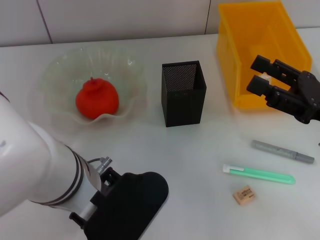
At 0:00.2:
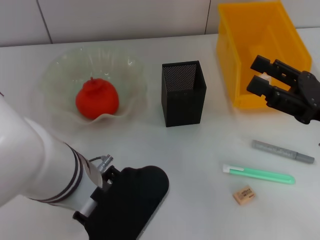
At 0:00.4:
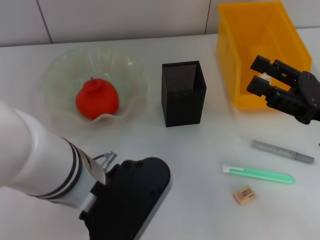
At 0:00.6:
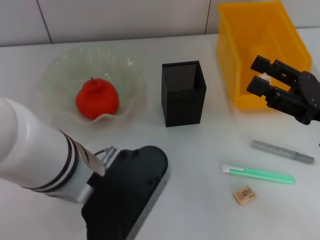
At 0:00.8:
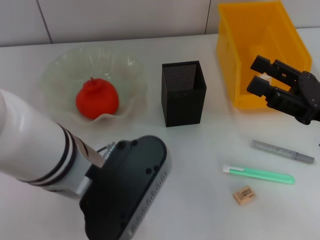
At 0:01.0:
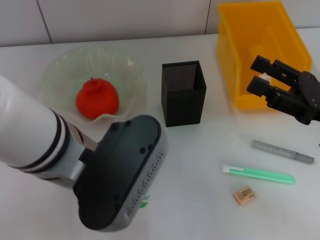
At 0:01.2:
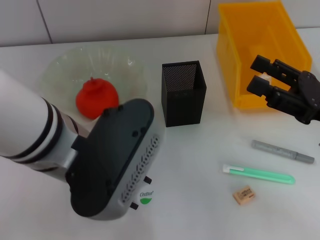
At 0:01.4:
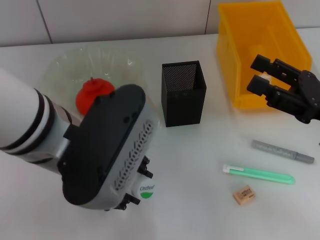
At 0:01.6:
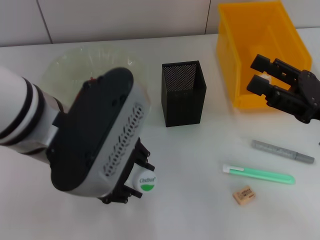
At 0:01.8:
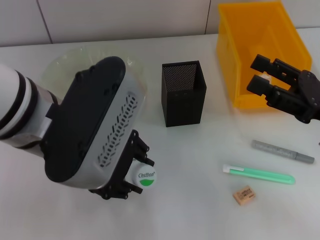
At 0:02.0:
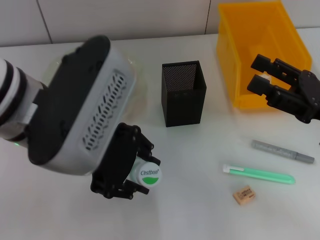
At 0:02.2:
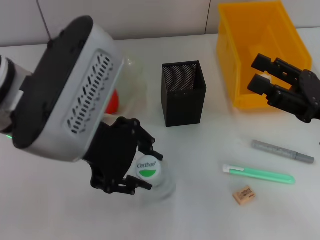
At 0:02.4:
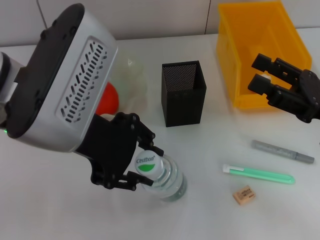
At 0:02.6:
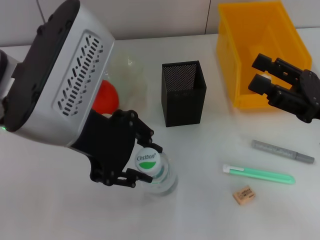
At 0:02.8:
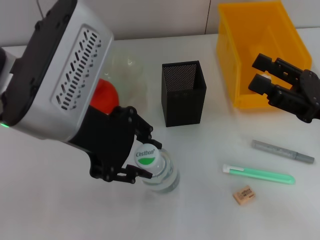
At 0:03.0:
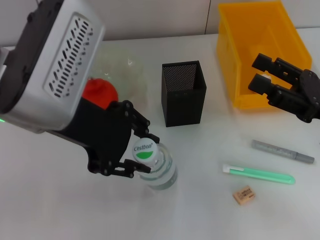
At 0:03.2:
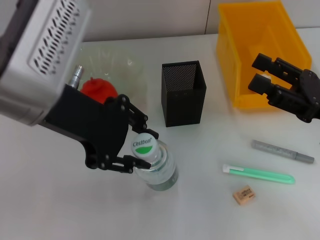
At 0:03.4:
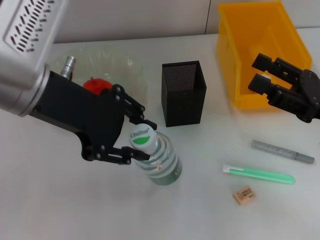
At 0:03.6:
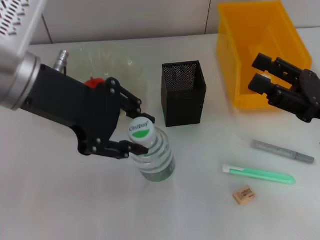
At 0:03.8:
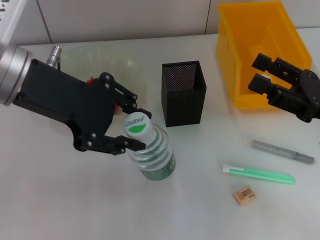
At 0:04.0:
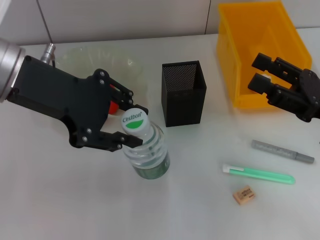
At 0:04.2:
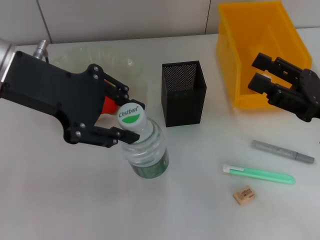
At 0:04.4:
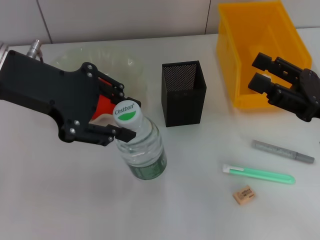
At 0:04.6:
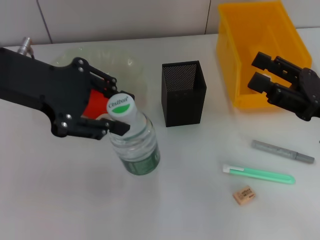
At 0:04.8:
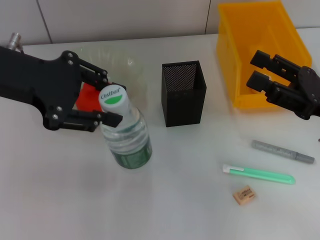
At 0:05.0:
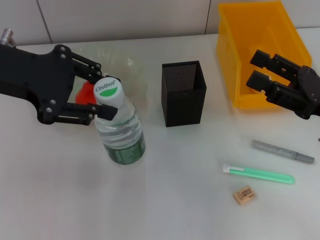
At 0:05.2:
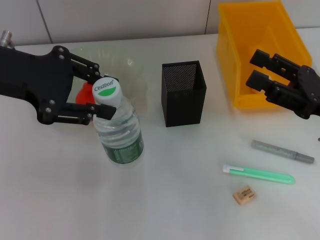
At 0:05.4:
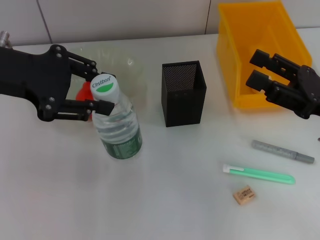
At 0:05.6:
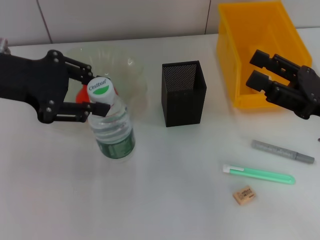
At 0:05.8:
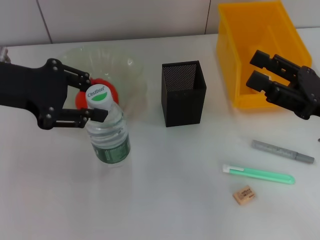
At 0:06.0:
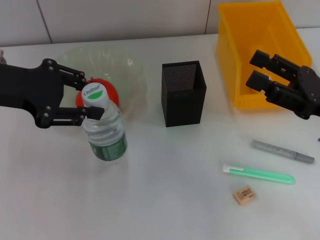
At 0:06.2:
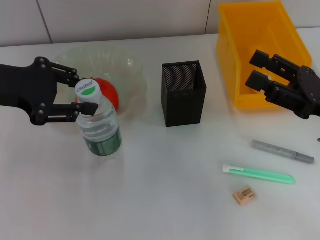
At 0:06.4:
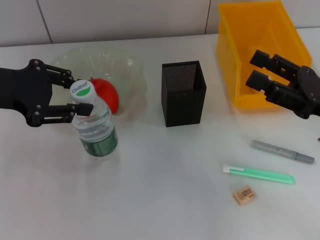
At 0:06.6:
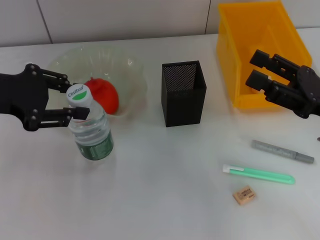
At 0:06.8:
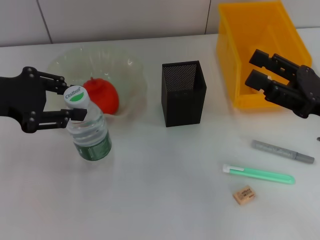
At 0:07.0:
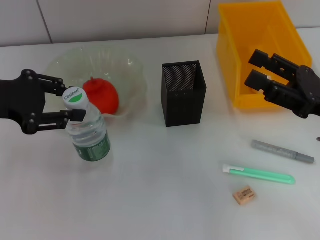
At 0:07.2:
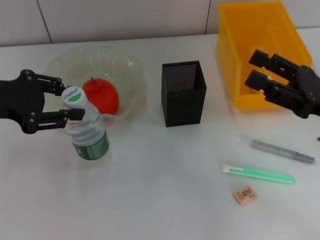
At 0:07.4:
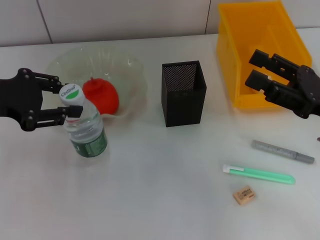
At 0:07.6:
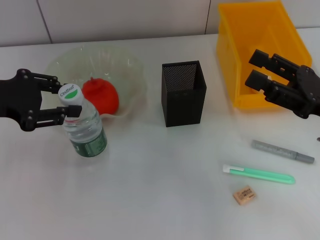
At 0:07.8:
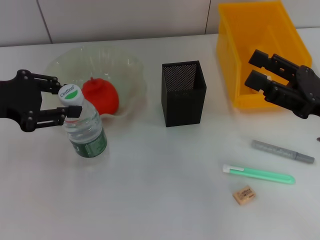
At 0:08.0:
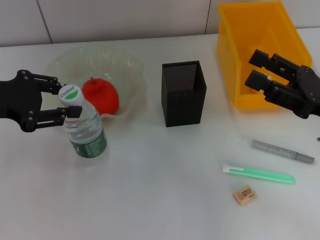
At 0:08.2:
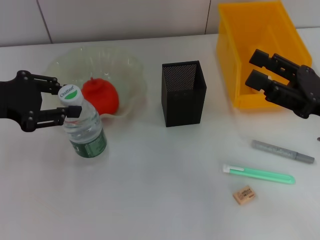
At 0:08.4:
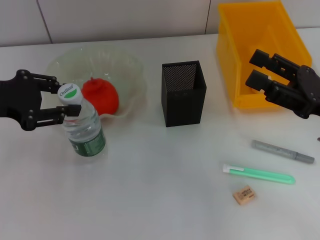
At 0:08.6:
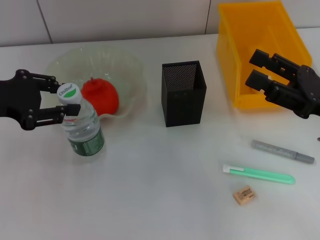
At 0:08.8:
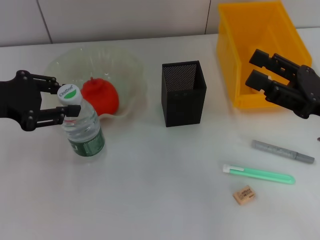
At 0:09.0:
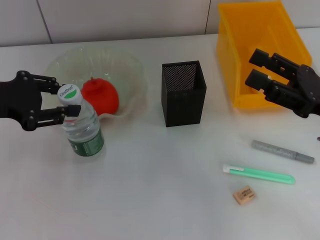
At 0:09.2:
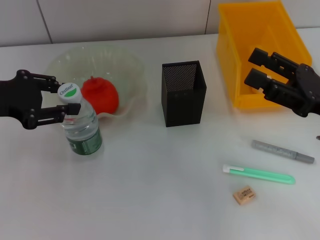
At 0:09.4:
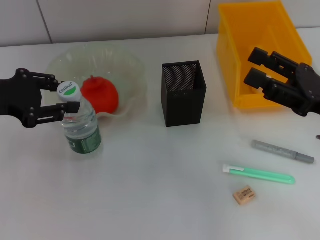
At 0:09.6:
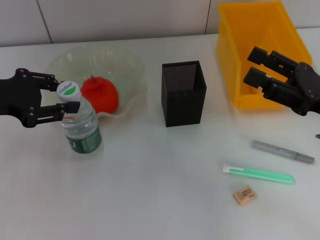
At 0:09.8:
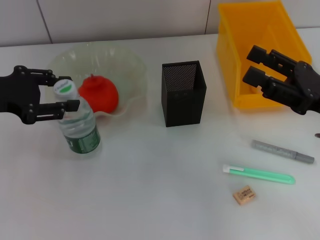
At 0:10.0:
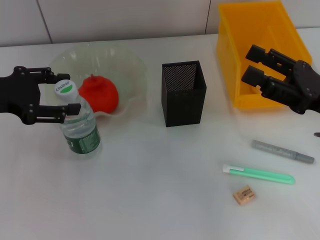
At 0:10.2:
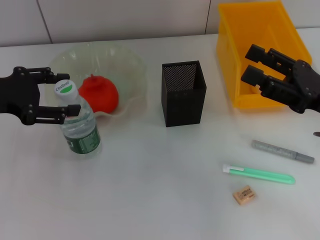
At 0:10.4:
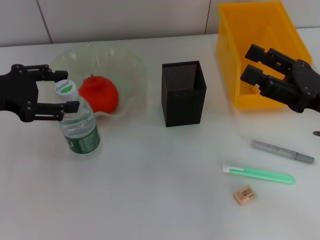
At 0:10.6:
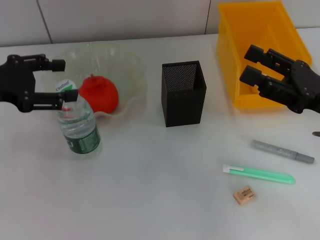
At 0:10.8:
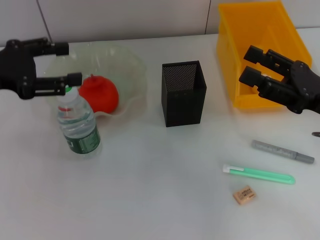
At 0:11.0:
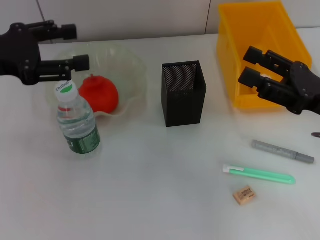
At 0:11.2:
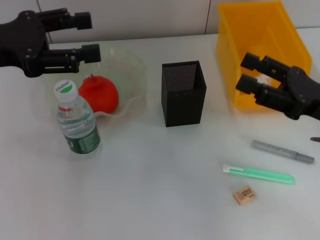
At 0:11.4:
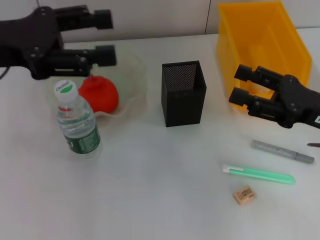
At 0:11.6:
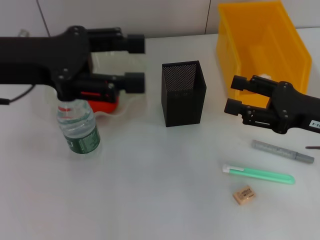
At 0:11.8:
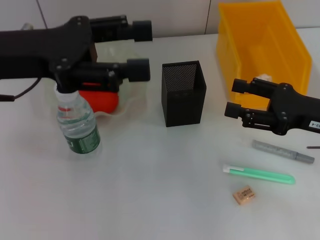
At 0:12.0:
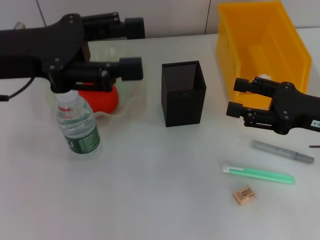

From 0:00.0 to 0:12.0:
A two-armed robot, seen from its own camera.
Step, from 0:00.0 to 0:10.4: Place the water bottle on the table with the left hand.
From 0:00.0 to 0:01.6: The left gripper shifts some 5 cm upward.
From 0:03.0 to 0:04.4: The left gripper travels to the left by some 5 cm.
From 0:04.4 to 0:06.0: The left gripper is displaced to the left by about 5 cm.
From 0:06.0 to 0:07.6: The grippers stay close to where they were, moving slightly.
From 0:07.6 to 0:09.0: Both grippers stay put.
From 0:09.0 to 0:10.4: The left gripper opens.
From 0:10.4 to 0:12.0: The left gripper is displaced to the right and upward by about 10 cm.

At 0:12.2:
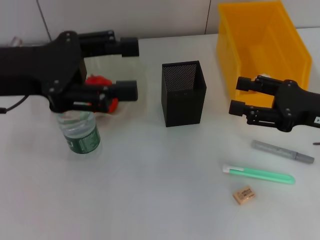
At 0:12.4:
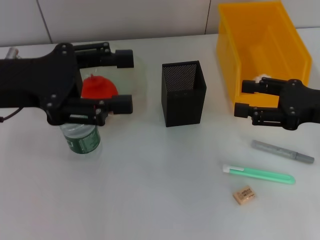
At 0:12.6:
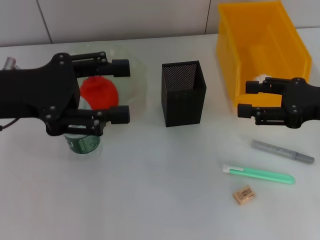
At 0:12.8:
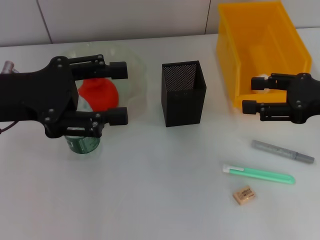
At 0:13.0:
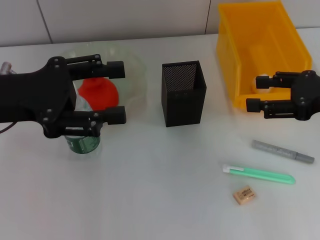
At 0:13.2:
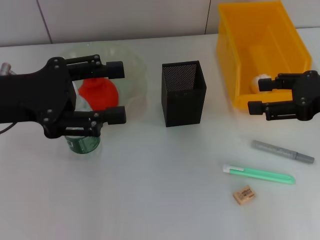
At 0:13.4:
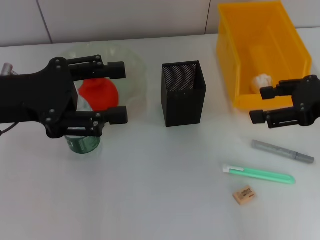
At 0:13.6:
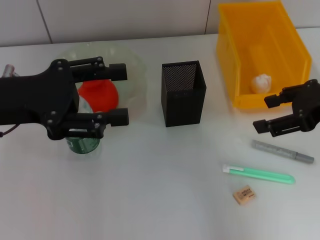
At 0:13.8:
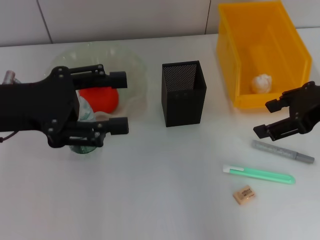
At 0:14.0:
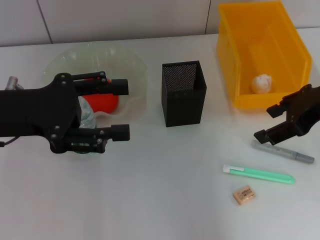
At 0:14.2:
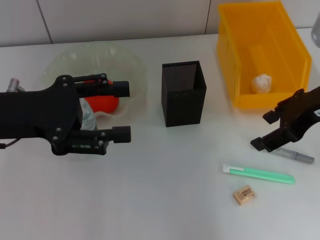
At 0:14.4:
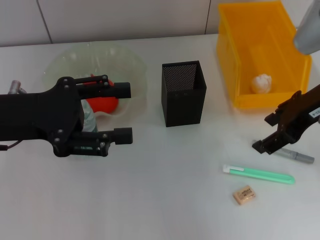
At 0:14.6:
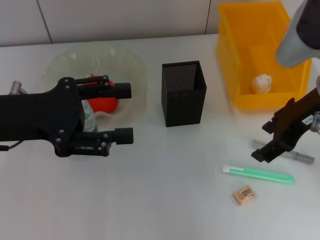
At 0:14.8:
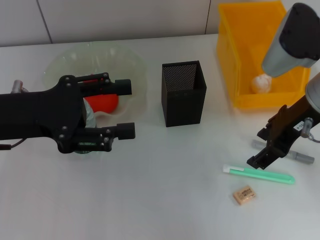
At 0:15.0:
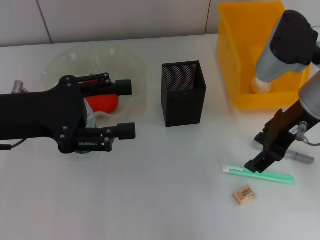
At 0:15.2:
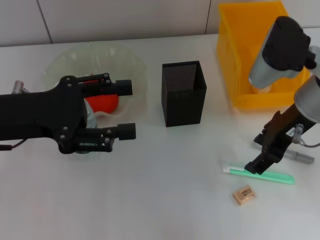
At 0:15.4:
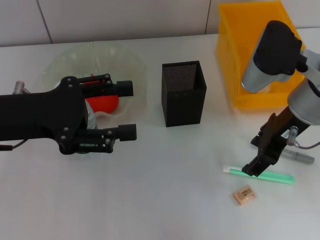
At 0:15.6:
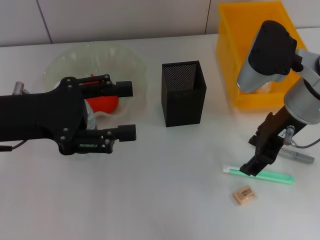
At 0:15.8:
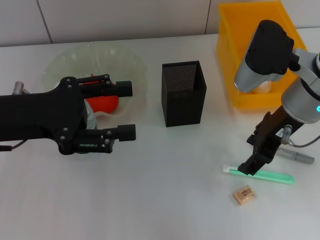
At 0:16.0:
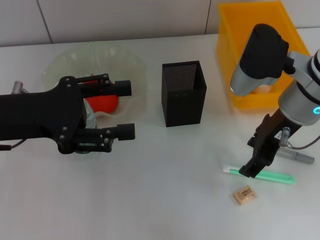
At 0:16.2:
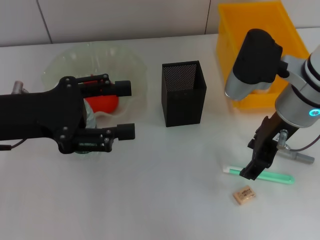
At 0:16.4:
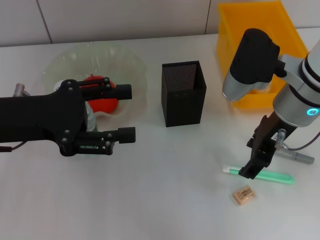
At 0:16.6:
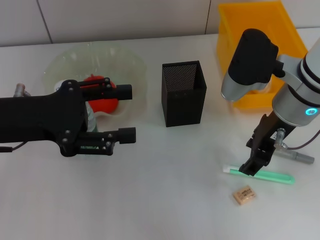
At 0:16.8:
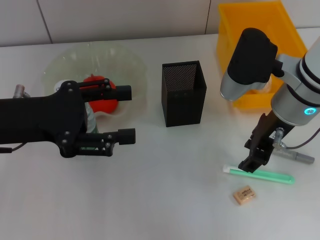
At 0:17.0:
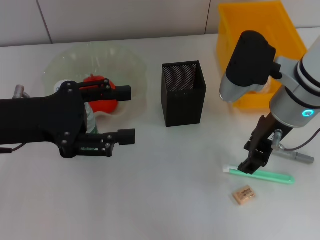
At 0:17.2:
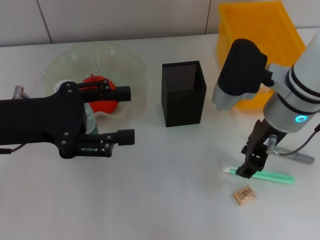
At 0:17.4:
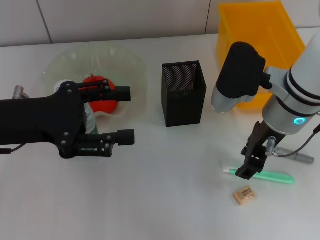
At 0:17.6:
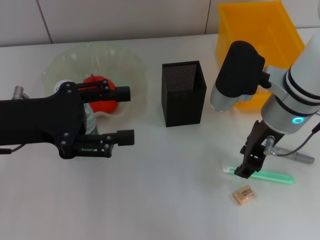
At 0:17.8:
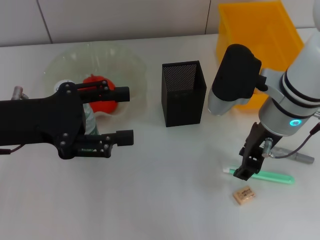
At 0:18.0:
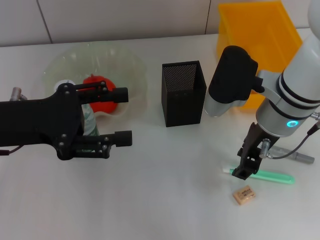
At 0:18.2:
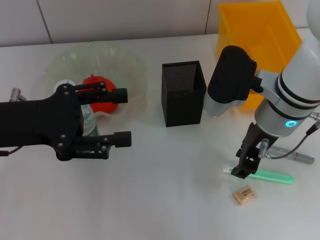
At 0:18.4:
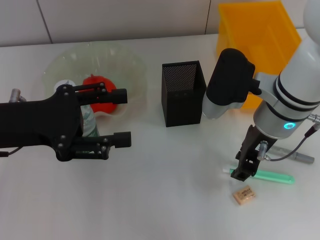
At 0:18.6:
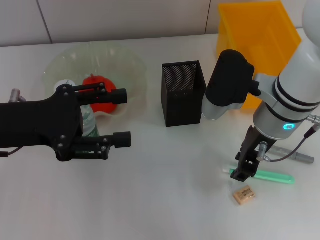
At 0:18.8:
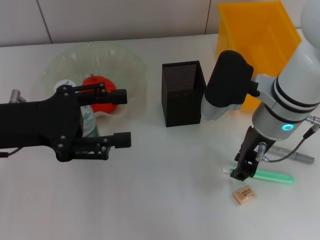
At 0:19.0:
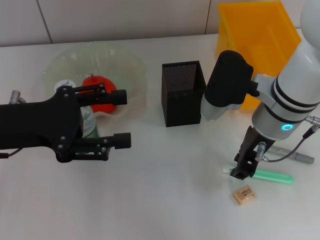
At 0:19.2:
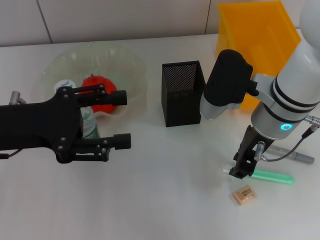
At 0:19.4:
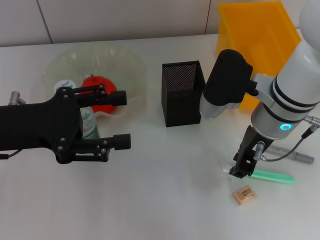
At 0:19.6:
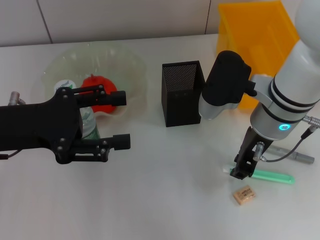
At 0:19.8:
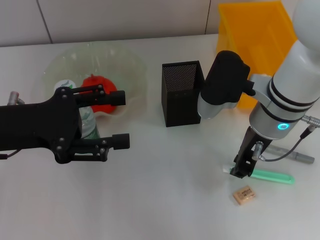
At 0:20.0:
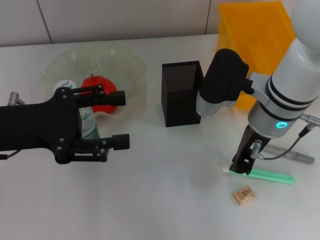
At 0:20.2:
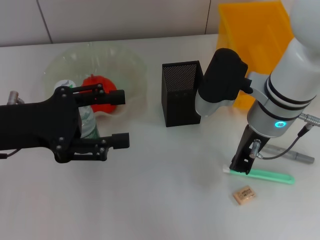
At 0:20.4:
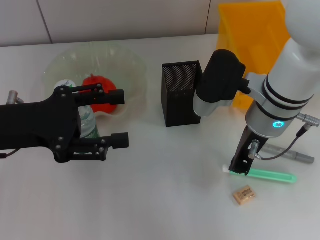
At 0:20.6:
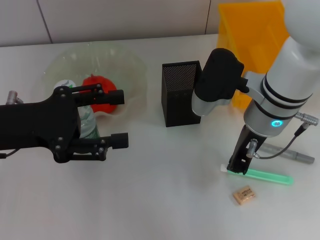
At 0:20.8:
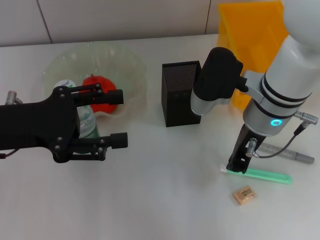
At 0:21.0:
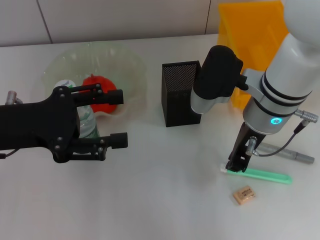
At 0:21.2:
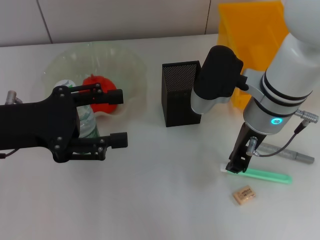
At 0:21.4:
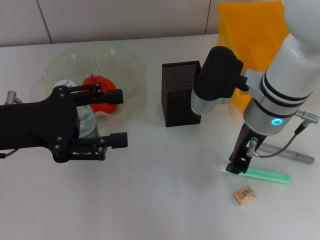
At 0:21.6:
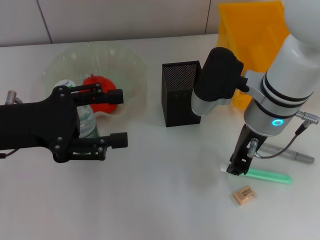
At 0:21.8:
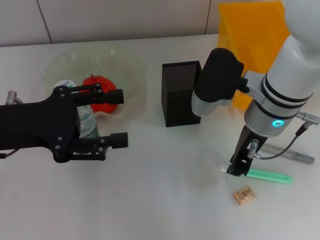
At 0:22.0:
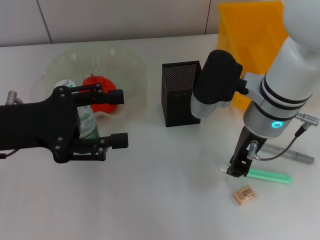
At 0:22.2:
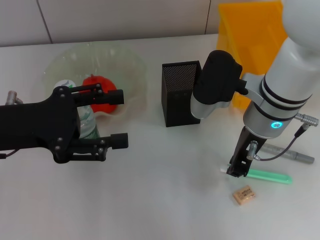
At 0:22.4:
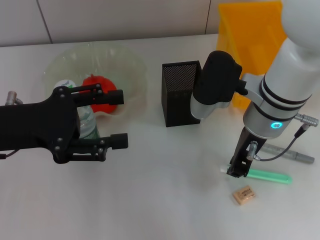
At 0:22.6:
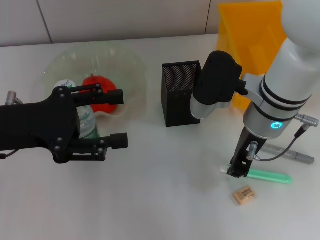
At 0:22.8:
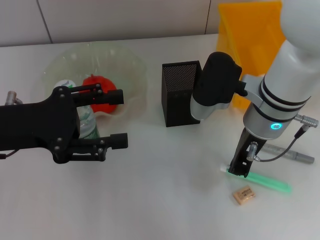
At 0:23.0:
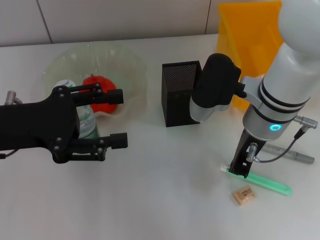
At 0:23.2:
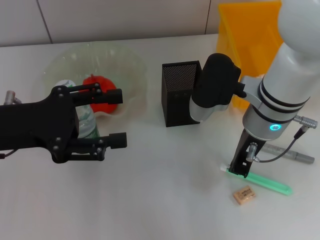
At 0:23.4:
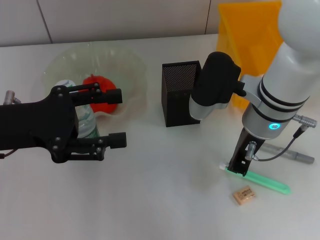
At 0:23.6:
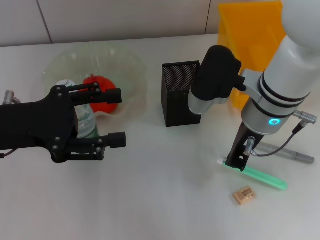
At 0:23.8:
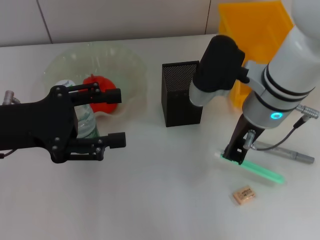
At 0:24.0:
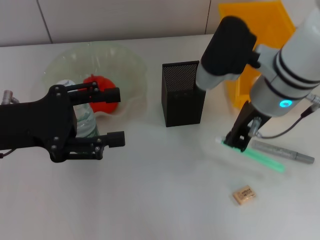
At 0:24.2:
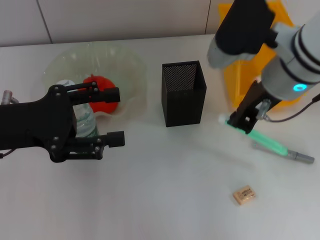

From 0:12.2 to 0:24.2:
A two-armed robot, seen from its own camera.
Step, from 0:12.2 to 0:23.2: Grab the blue utility knife with the right hand.
From 0:12.2 to 0:13.8: The right gripper shifts some 10 cm upward.
From 0:13.8 to 0:15.2: The right gripper is displaced to the left by some 5 cm.
From 0:15.2 to 0:18.2: There are only small adjustments of the grippers.
From 0:18.2 to 0:19.8: The two grippers keep their place.
From 0:19.8 to 0:22.6: The two grippers keep their place.
From 0:22.6 to 0:24.2: The right gripper is displaced upward by some 5 cm.
